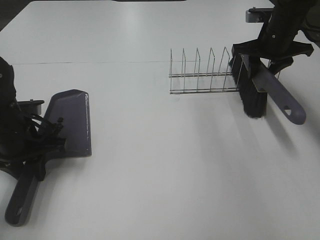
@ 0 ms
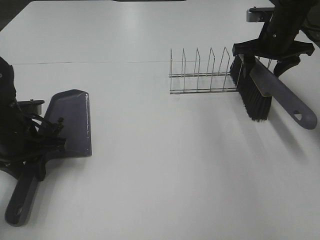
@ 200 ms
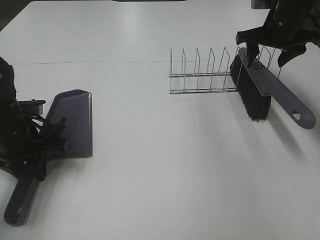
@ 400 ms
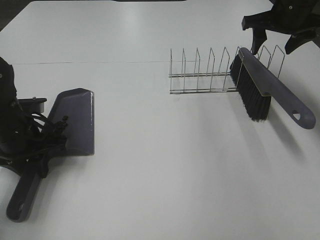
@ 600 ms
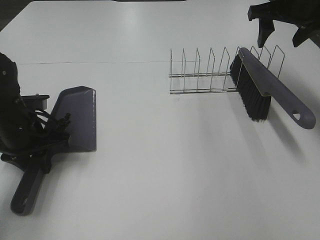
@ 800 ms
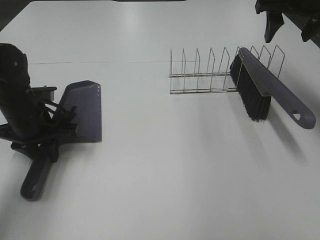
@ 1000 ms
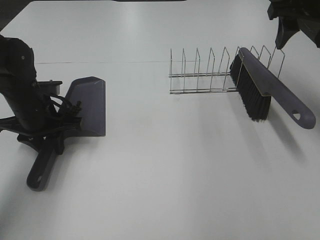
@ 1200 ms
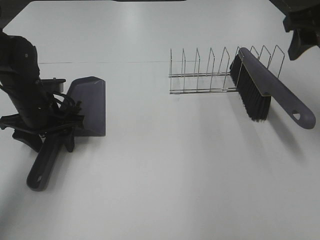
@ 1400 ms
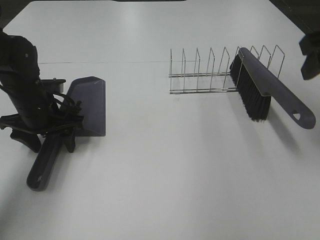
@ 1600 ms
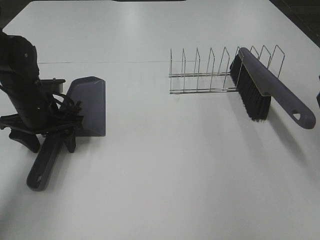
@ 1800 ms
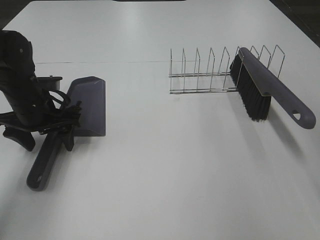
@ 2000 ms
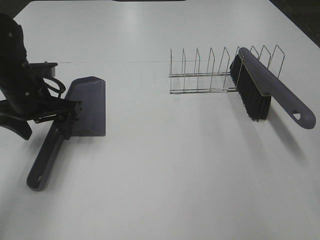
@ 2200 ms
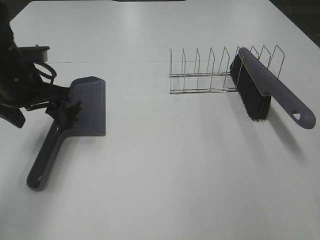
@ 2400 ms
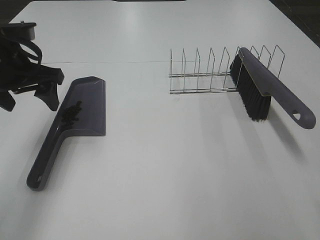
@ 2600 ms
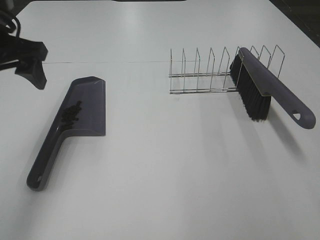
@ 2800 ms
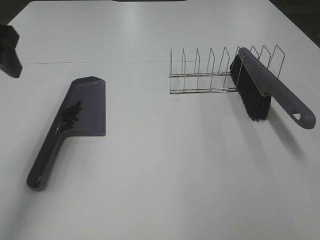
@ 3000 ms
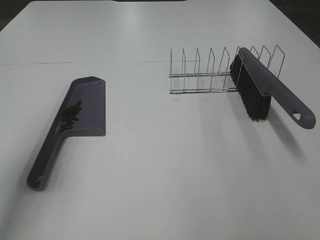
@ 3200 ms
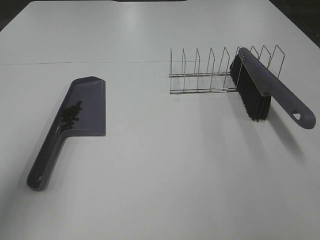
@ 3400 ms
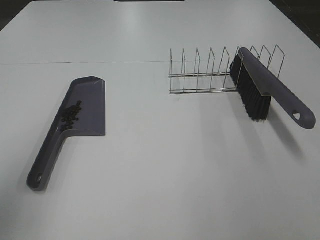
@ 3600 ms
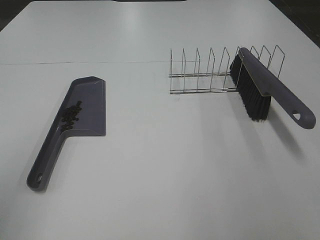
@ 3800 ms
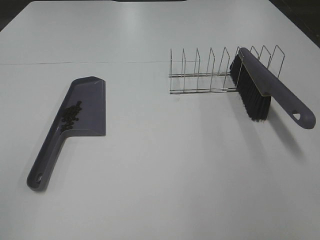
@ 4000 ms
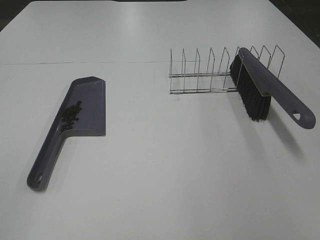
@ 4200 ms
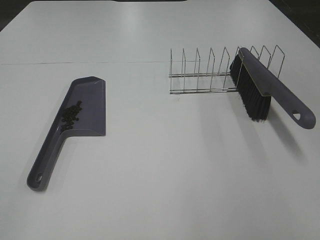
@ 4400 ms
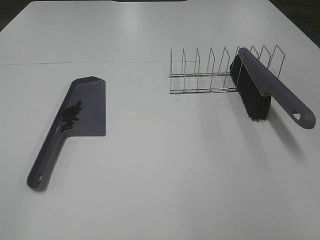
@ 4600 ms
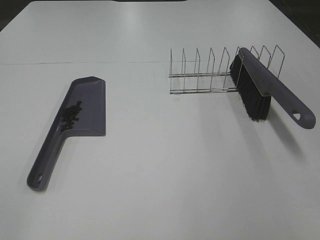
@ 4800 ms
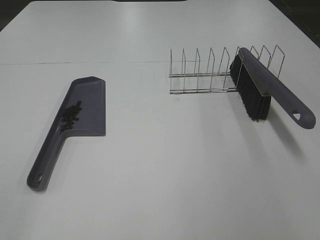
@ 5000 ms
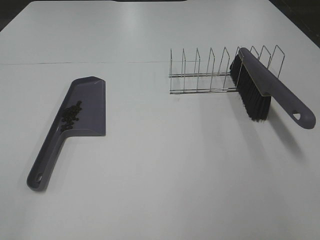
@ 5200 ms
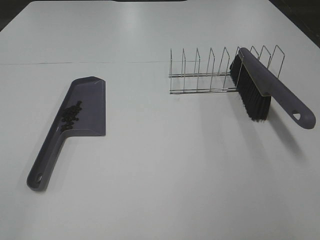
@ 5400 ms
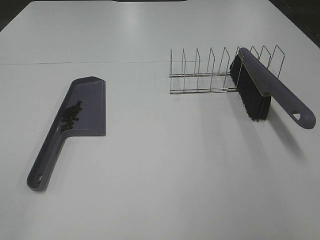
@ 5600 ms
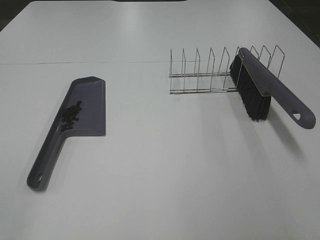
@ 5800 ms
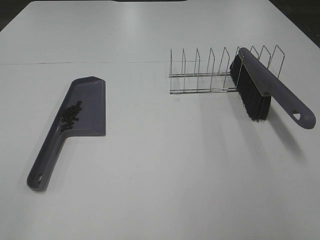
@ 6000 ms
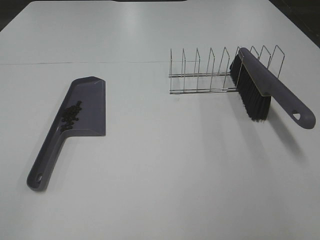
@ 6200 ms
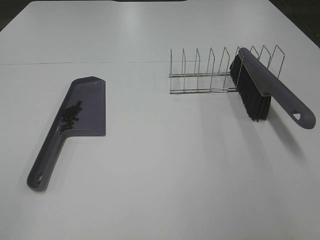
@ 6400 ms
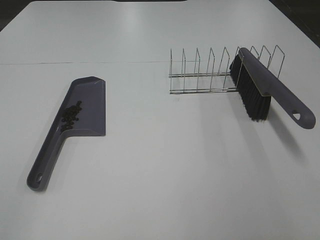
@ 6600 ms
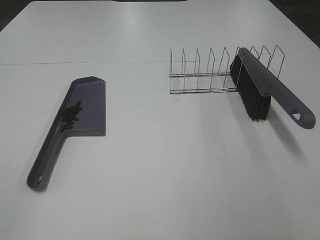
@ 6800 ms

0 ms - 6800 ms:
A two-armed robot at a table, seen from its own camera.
Task of the whole recording: Sweep Coffee Bean.
Step, 400 ms - 2000 ms: Left hand:place the dustpan on the table.
0 ms - 1400 ms: The right gripper moves backward and upward, roughly 20 cm, and opens. The left gripper travels forward by roughly 5 cm, and opens.
1400 ms - 2800 ms: The right gripper heads backward, covering roughly 25 cm. Meanwhile the left gripper moves upward, some 20 cm.
2800 ms - 4000 ms: The left gripper goes approximately 30 cm backward.
